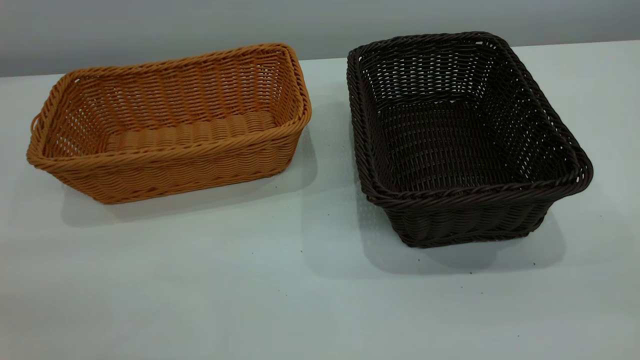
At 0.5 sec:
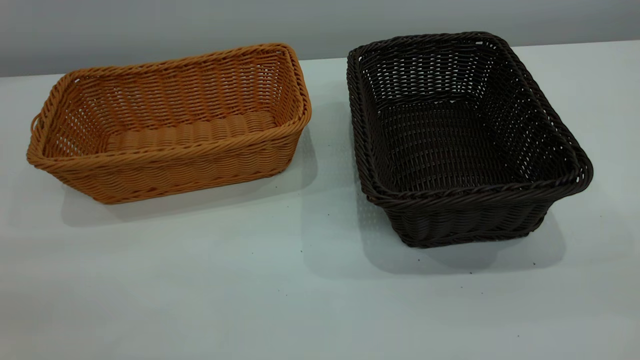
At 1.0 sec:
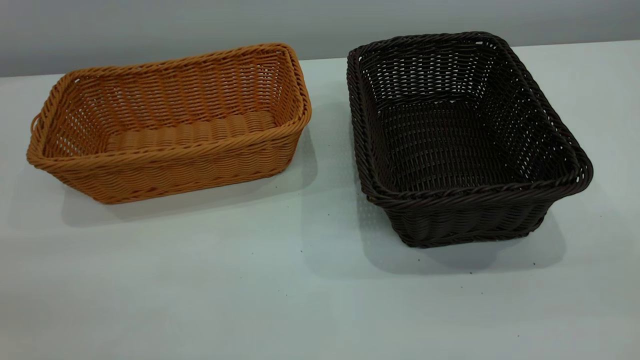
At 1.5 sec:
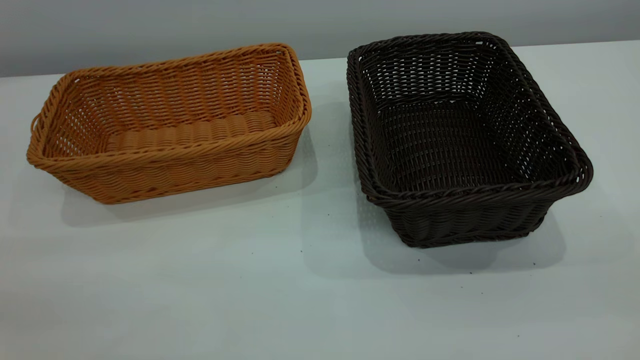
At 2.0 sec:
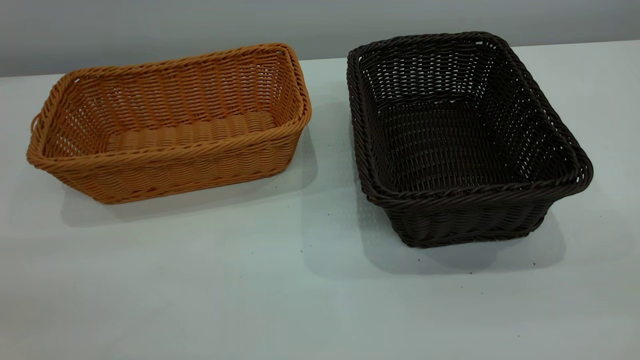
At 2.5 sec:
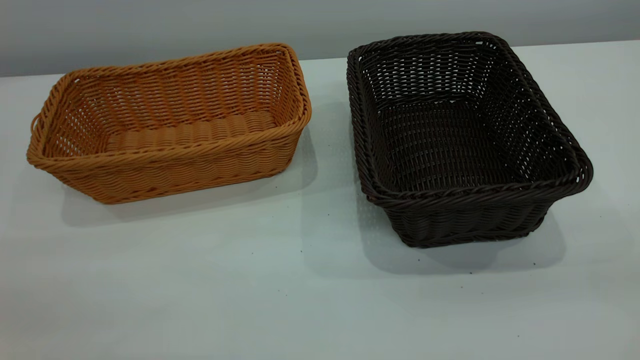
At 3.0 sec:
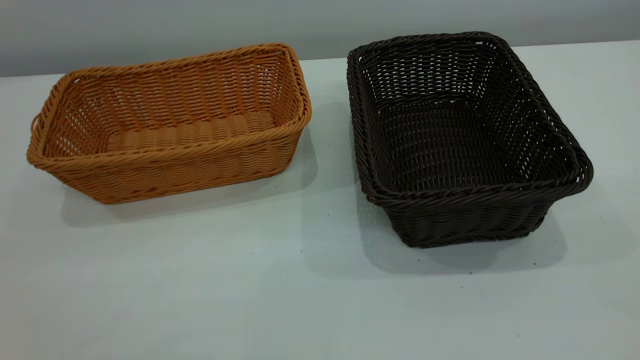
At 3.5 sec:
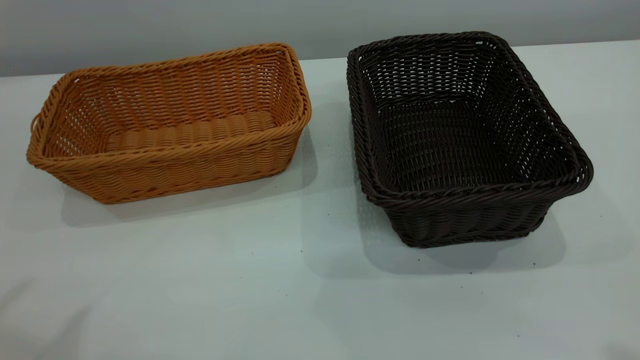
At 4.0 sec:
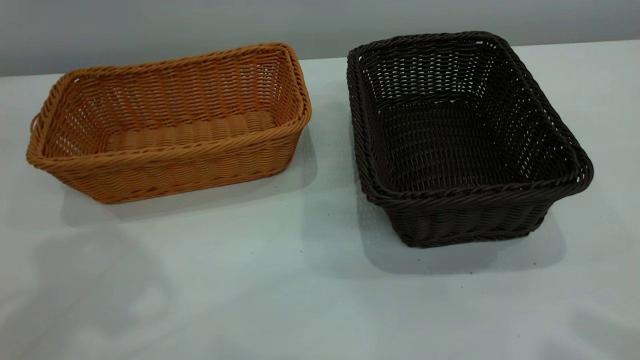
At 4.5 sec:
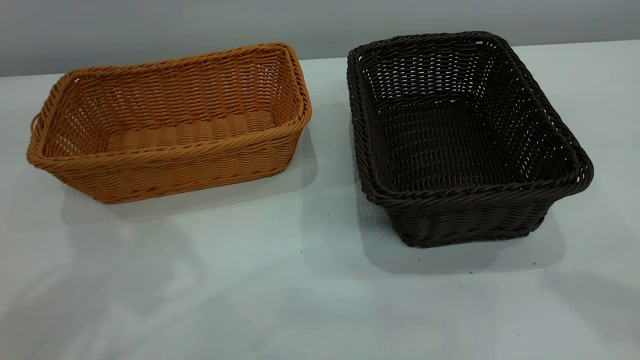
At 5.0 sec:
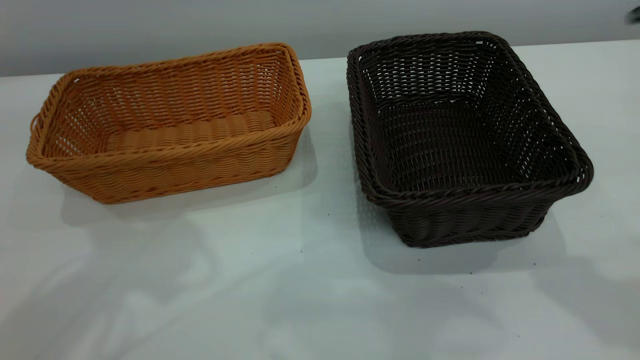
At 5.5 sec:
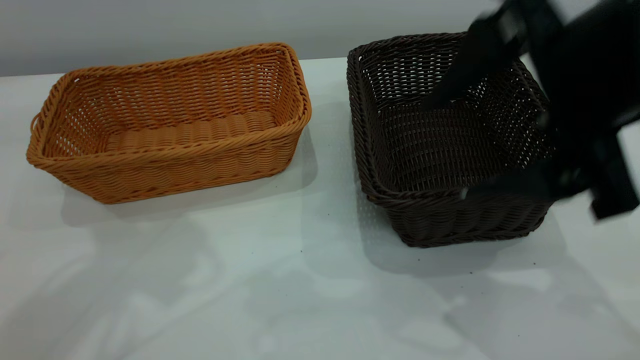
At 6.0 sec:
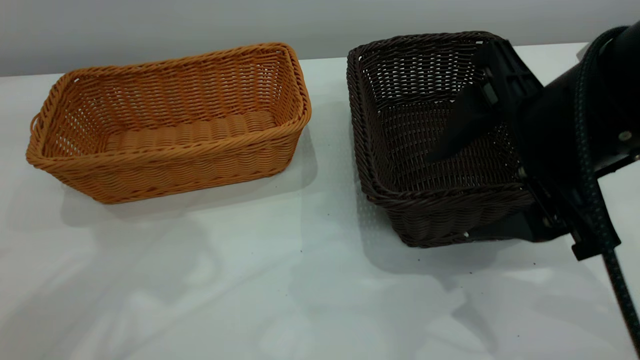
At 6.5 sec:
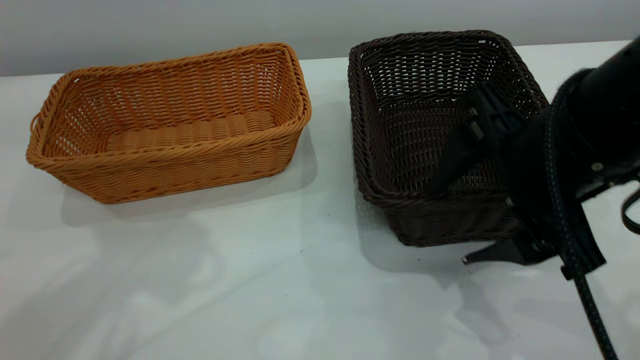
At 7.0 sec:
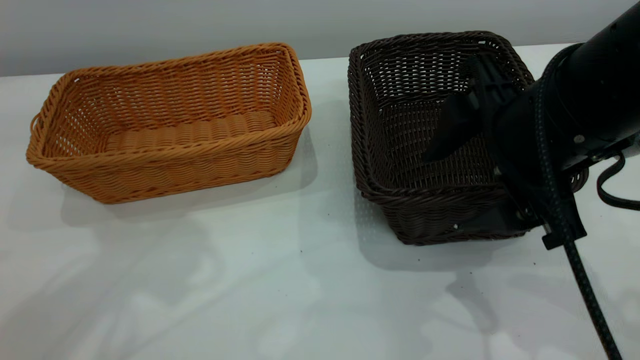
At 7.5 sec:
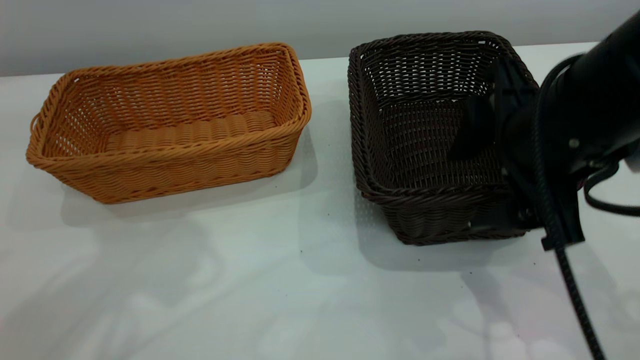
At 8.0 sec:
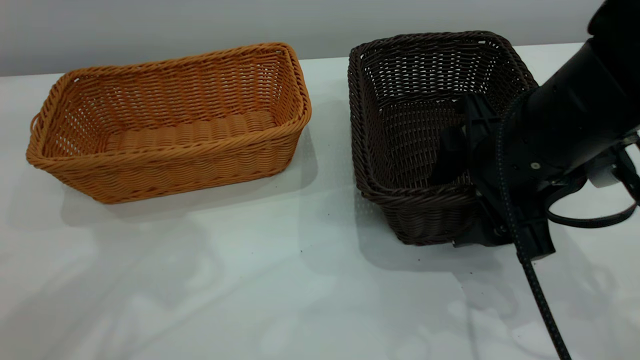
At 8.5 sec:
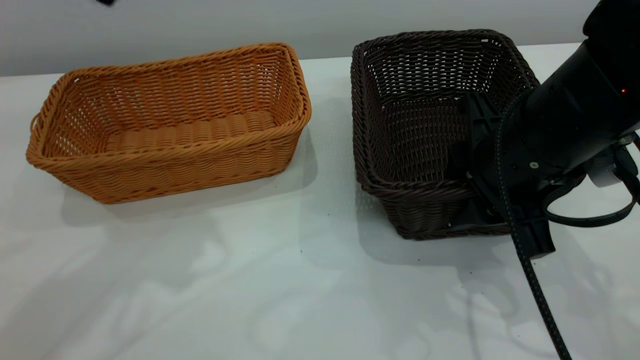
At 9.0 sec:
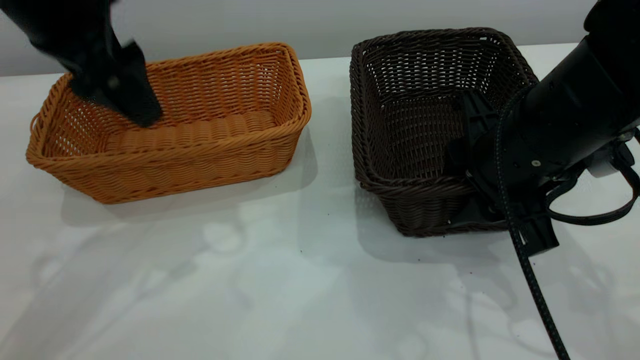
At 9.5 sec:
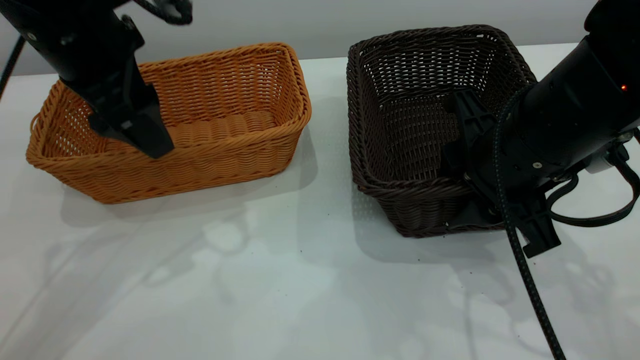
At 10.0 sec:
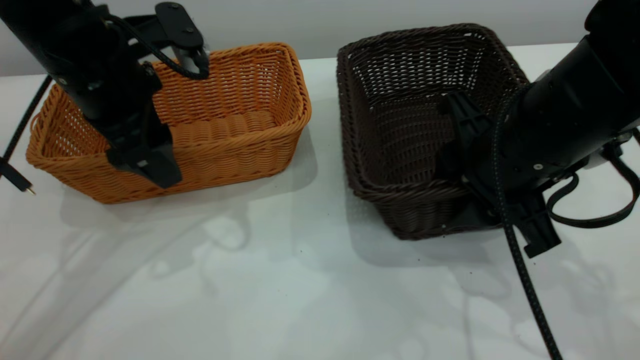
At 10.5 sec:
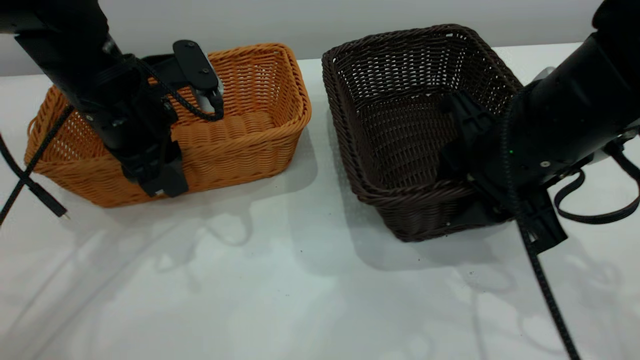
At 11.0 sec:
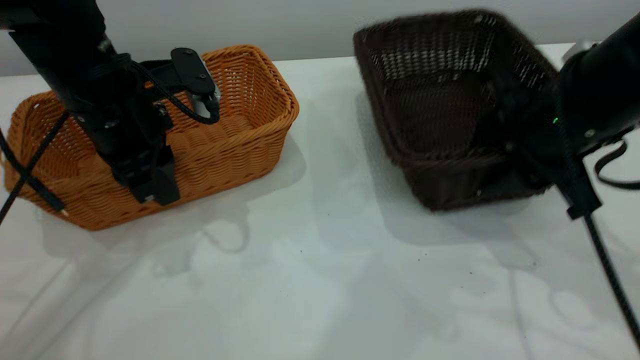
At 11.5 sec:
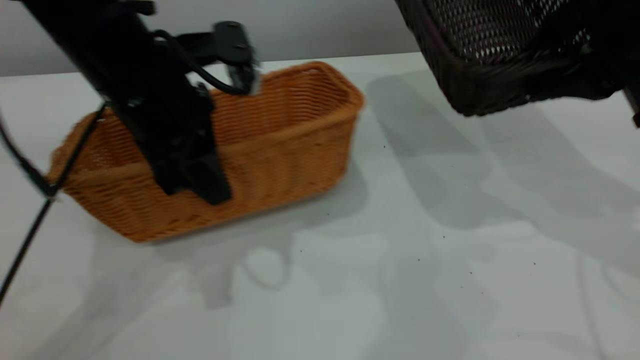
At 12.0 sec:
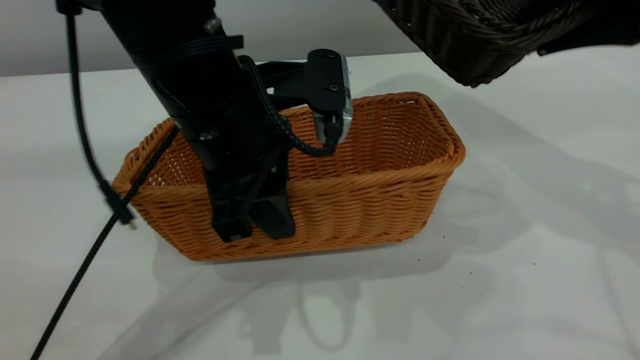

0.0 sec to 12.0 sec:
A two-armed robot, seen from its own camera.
Task of the whole recording: the left gripper grasp the brown basket and place it in the center of the table, the right gripper grasp the black basket and place it inside the brown one.
Step, 0.0 sec to 11.0 sec: Pick up the light basket with the right gripper.
0.0 sec to 2.0 sec: Both grippers stay about where they are.
4.0 sec to 6.0 sec: The right gripper goes some 25 cm downward, forward and to the left, while the left gripper ends up about 5 cm from where it was.
6.0 sec to 8.0 sec: The right gripper travels downward and forward by about 10 cm.
8.0 sec to 10.0 sec: The left gripper is displaced downward and forward by some 20 cm, while the right gripper closes its fingers.
10.0 sec to 12.0 sec: The left gripper travels to the right and backward by about 15 cm, and closes, while the right gripper is displaced upward and to the right by approximately 15 cm.

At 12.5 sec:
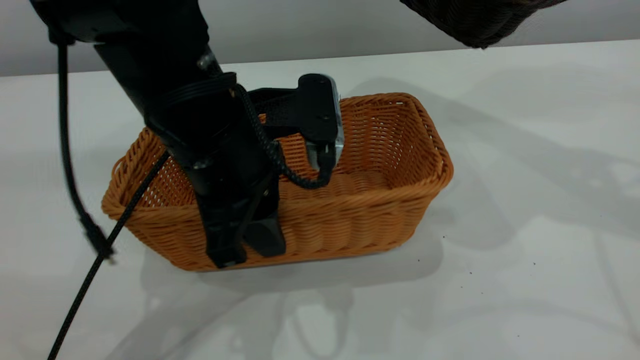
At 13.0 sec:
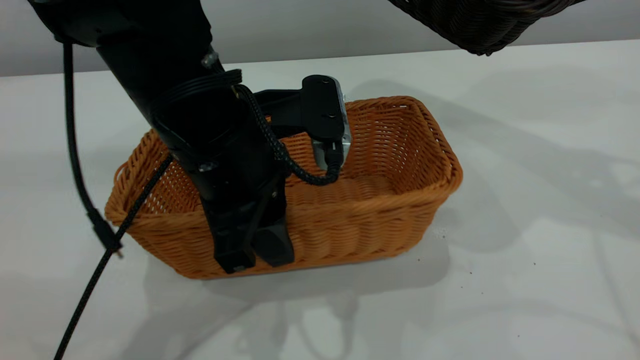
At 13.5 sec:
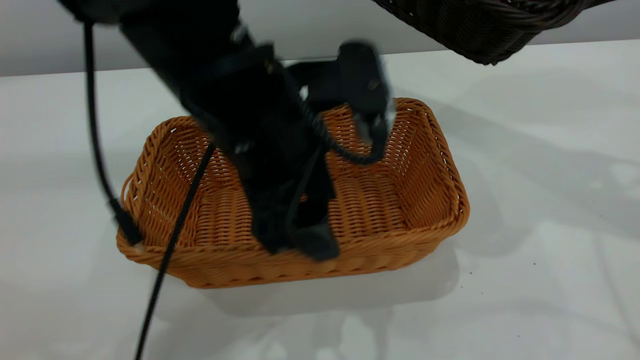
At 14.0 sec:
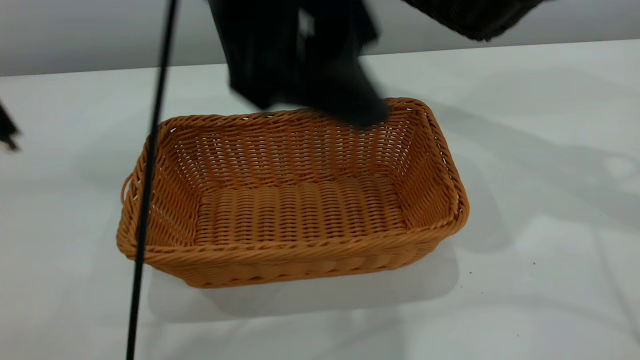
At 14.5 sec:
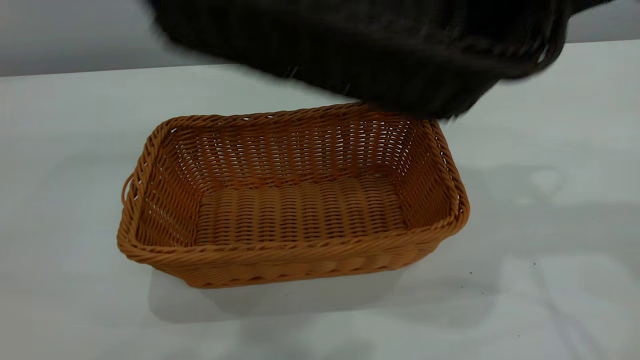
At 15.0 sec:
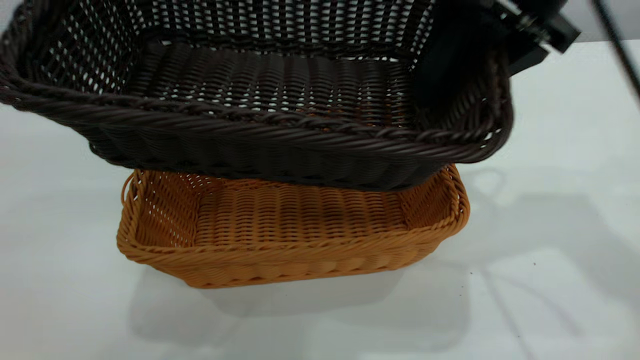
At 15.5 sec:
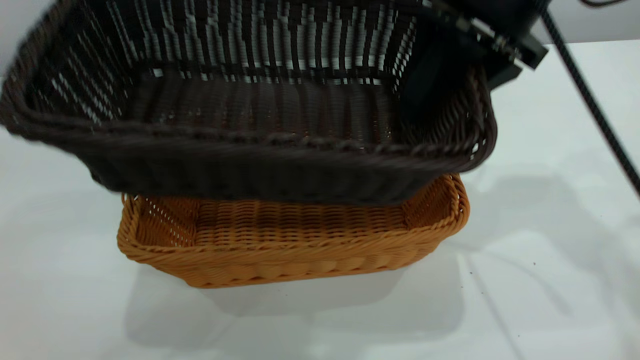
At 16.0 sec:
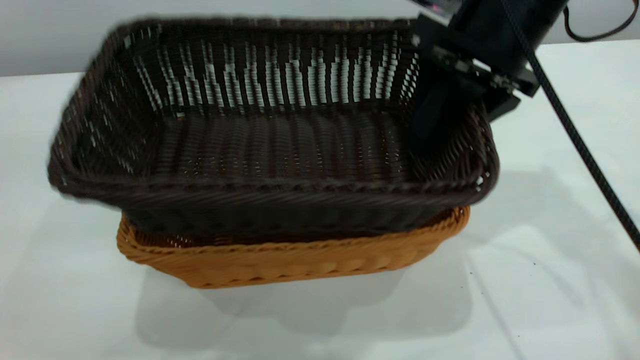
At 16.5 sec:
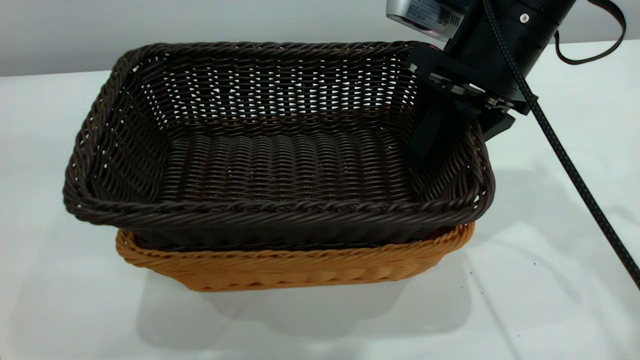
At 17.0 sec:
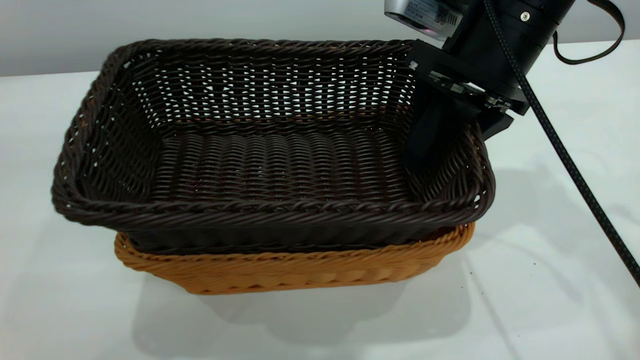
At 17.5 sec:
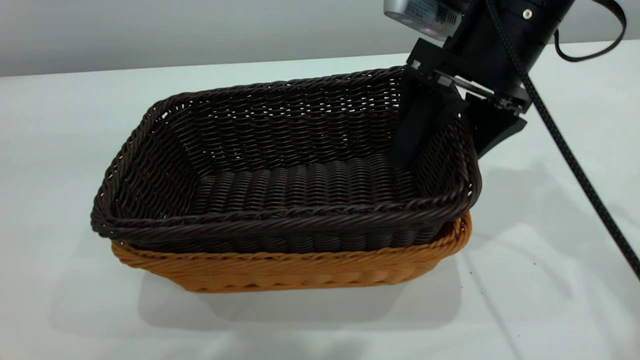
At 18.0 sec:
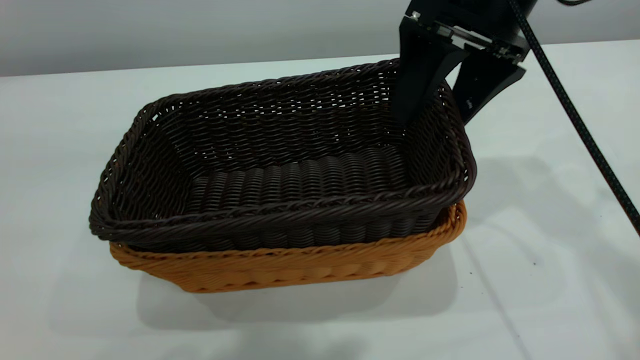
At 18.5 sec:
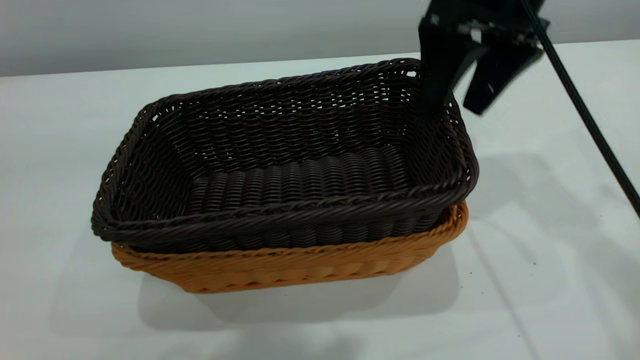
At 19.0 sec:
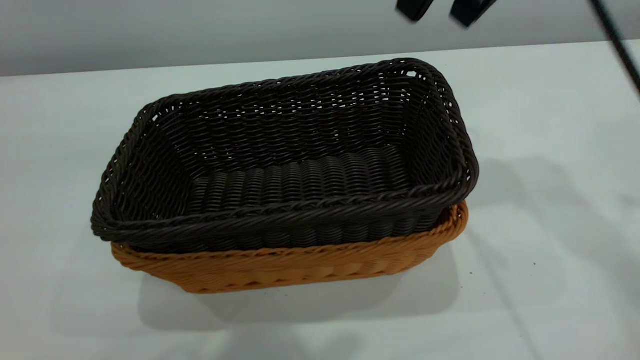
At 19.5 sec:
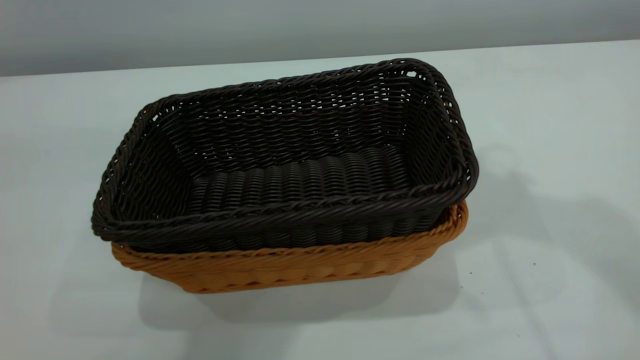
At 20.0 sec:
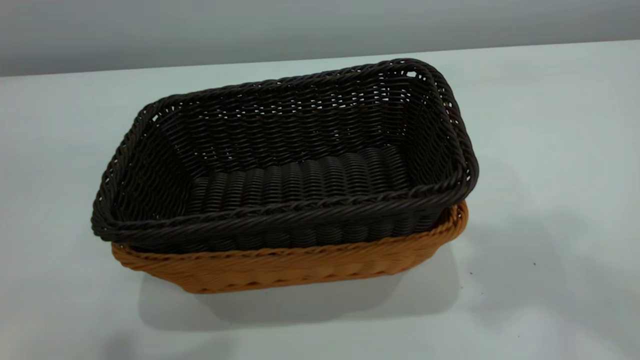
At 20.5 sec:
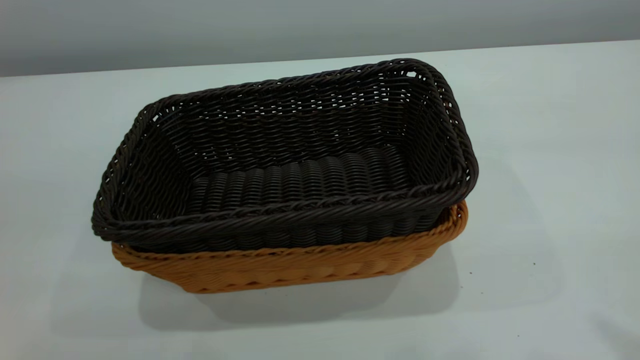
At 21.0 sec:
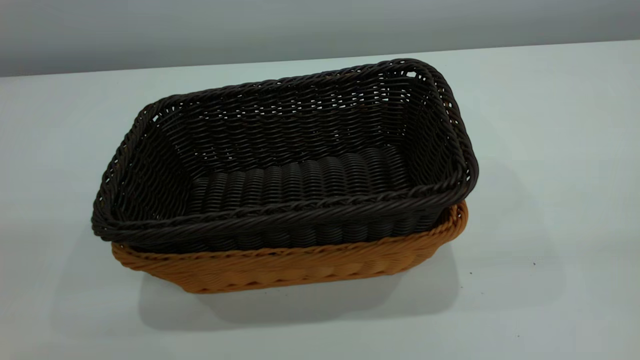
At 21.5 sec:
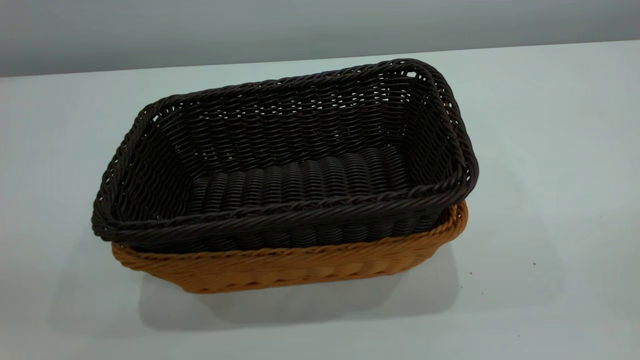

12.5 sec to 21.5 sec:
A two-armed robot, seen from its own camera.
Task of the whole recording: the left gripper grasp the brown basket and place it in the center of the table, the right gripper grasp the black basket and place it inside the brown one.
Step, 14.0 sec to 18.5 sec: Place the dark basket on top of the light basket.
12.5 sec to 14.5 sec: The left gripper heads upward, covering some 30 cm, and opens up, while the right gripper travels to the left by some 5 cm.
14.5 sec to 17.0 sec: The right gripper moves downward, roughly 10 cm.
17.0 sec to 19.5 sec: The left gripper closes up, while the right gripper travels upward by about 25 cm, and closes up.
19.5 sec to 21.5 sec: The right gripper travels backward by approximately 35 cm. The left gripper goes roughly 25 cm to the left, downward and backward.
